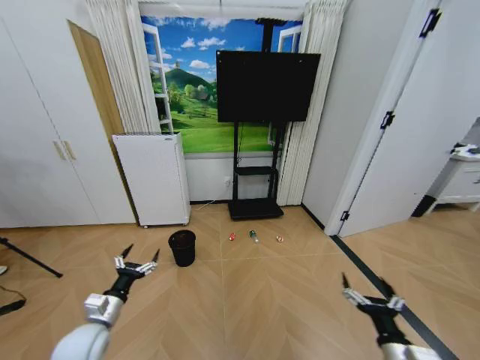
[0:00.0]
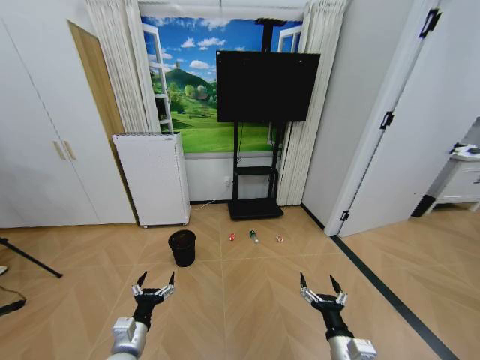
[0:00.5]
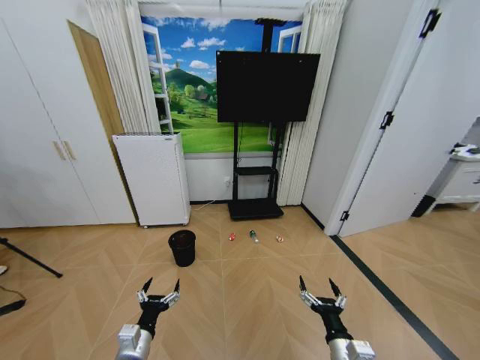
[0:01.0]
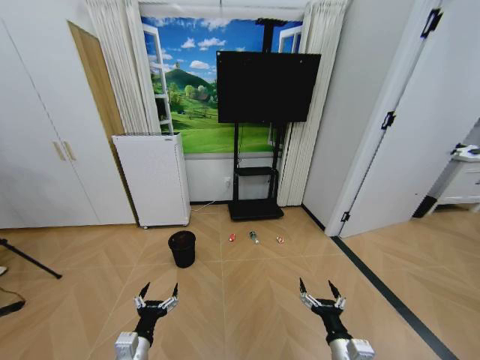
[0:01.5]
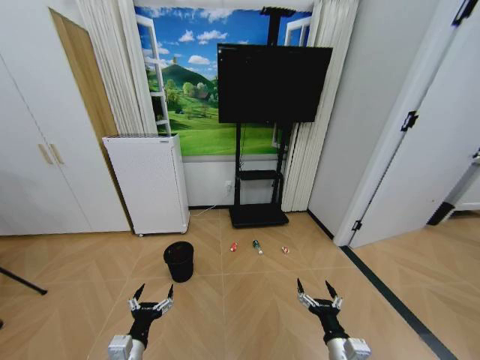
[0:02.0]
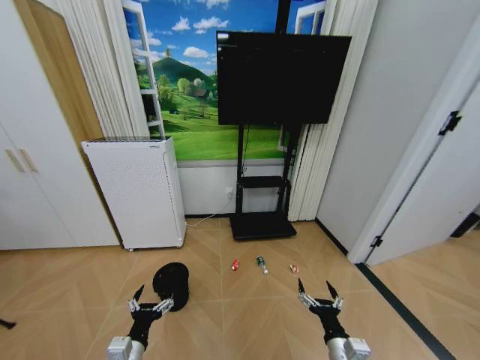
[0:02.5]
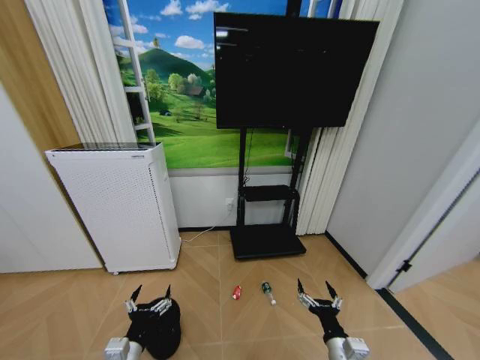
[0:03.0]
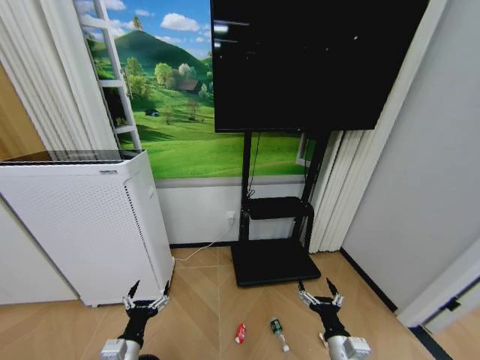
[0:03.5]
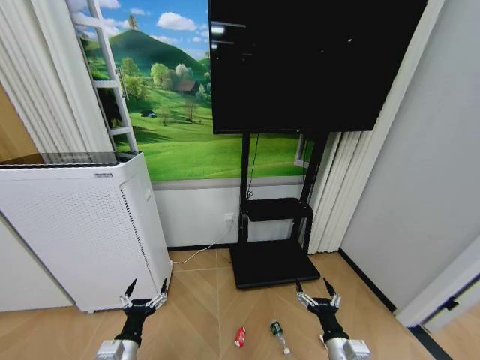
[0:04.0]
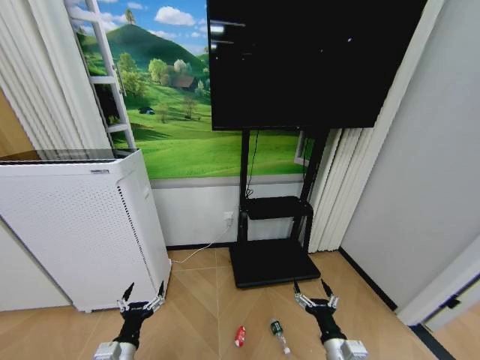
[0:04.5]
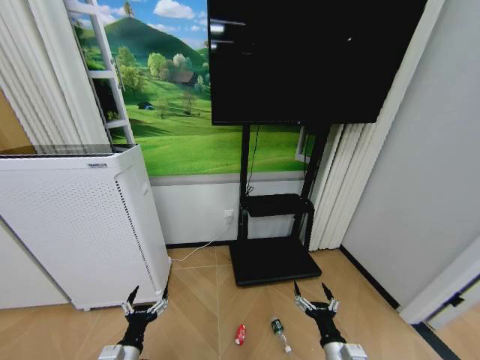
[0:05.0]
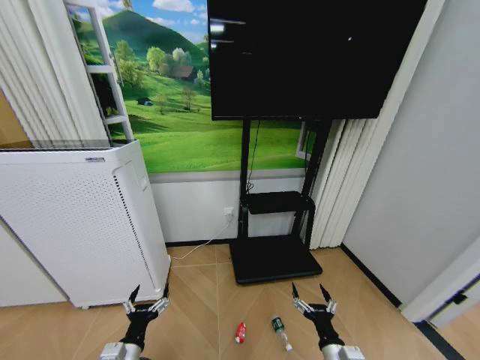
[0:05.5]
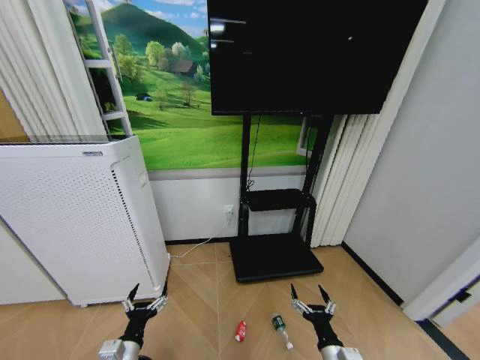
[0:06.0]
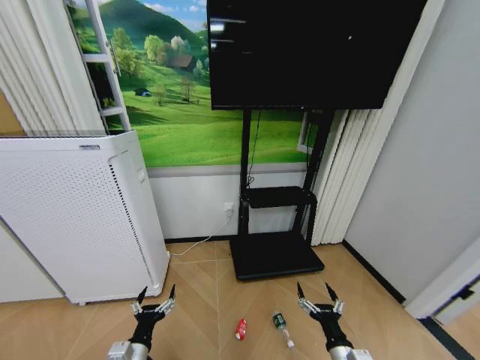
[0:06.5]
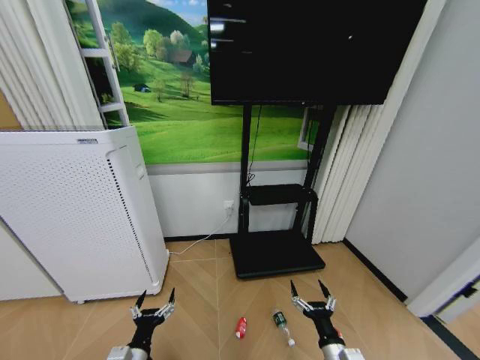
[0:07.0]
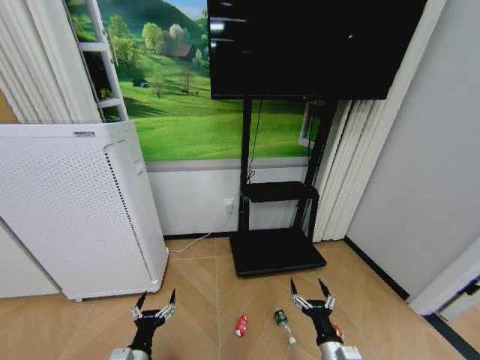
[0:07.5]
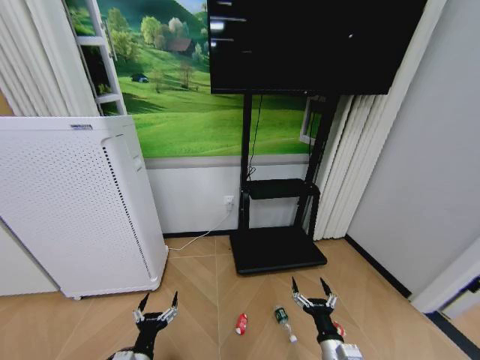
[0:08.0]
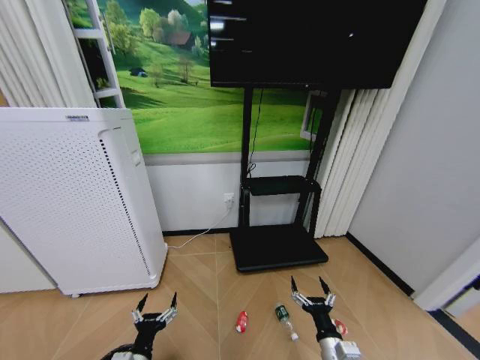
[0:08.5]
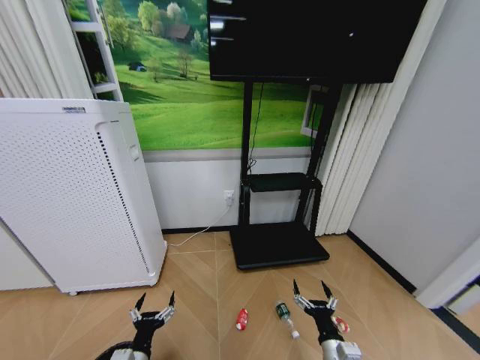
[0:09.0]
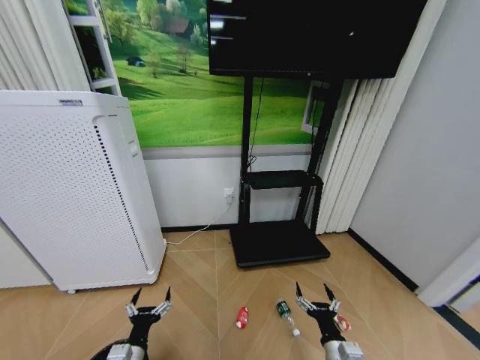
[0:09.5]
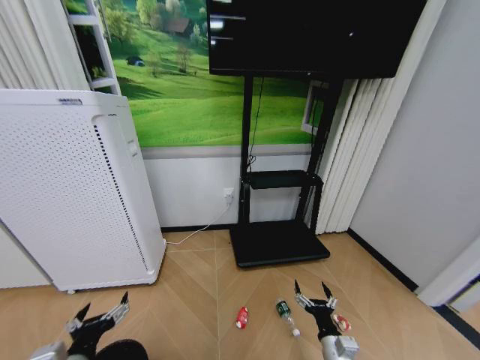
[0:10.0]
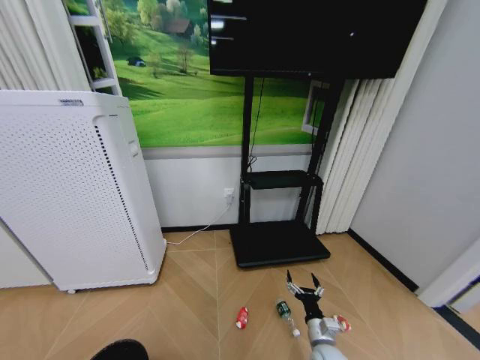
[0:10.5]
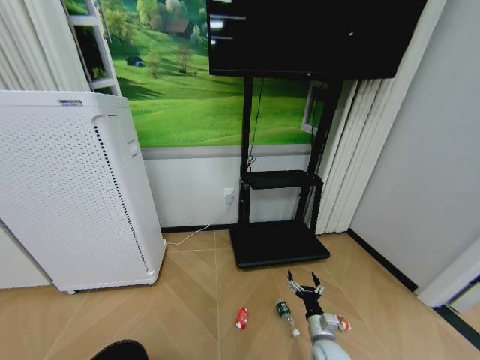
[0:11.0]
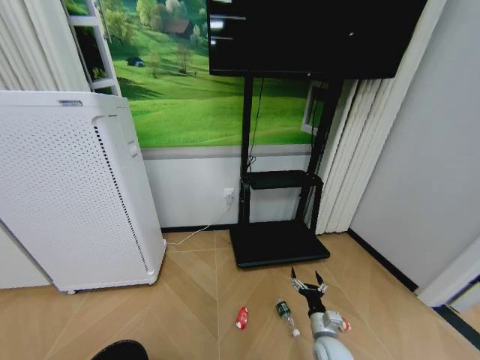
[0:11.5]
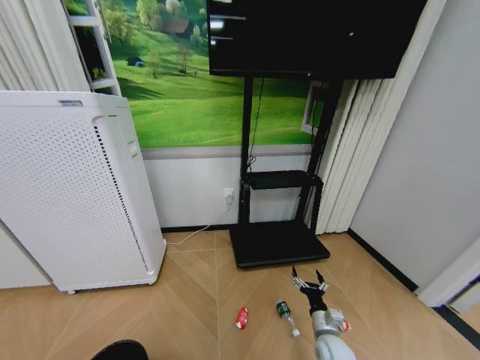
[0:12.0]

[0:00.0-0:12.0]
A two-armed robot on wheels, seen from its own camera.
Task of the whole recording: Pick up the trash bin and place the garbage on the floor into it.
0:08.0 to 0:10.0: The left gripper goes about 10 cm upward and to the left.
0:10.0 to 0:12.0: The right gripper shifts approximately 10 cm forward. Meanwhile the left gripper is displaced backward and upward by approximately 10 cm.

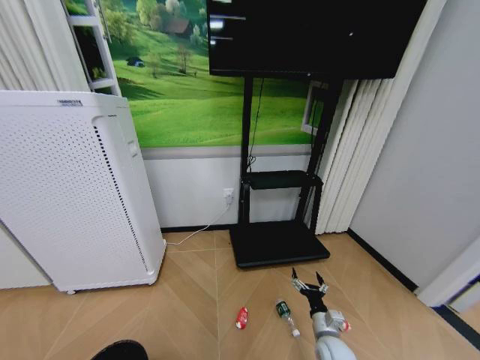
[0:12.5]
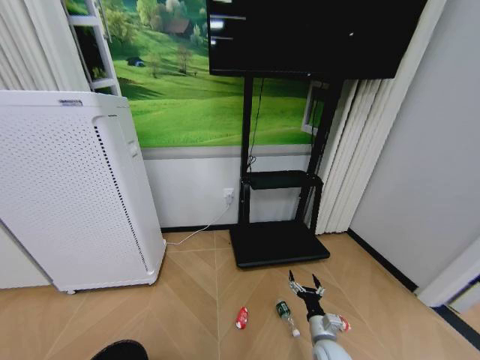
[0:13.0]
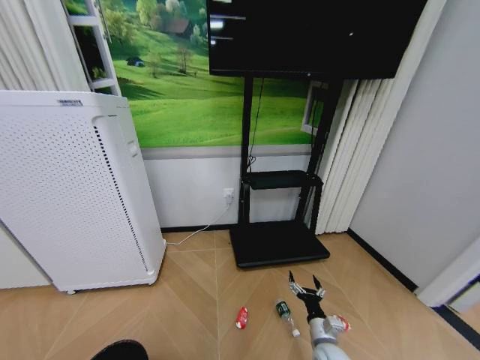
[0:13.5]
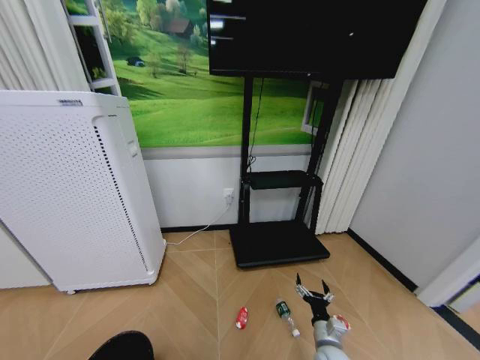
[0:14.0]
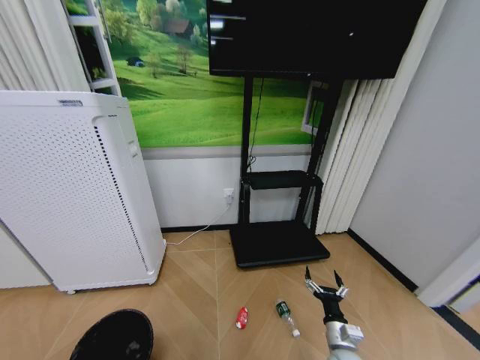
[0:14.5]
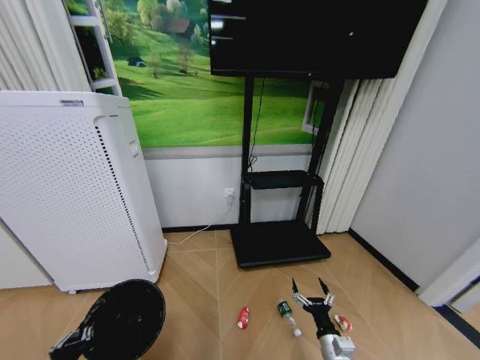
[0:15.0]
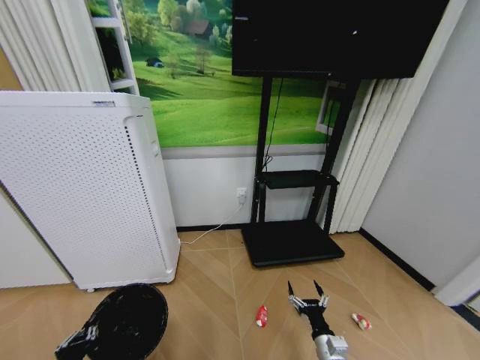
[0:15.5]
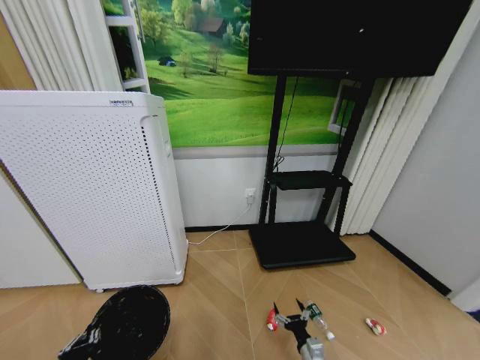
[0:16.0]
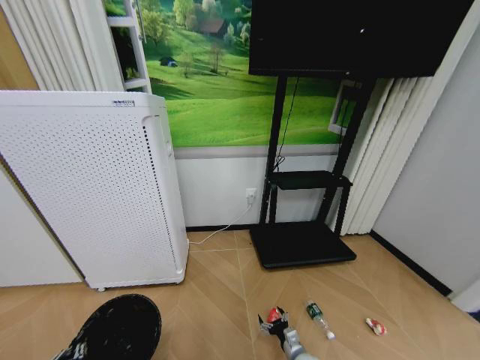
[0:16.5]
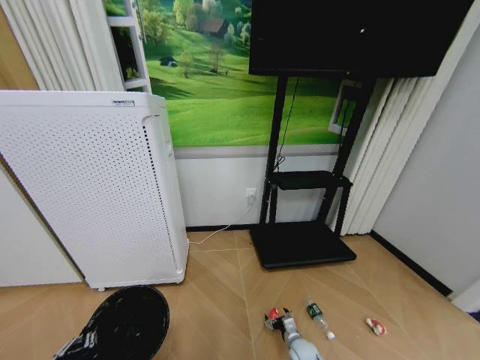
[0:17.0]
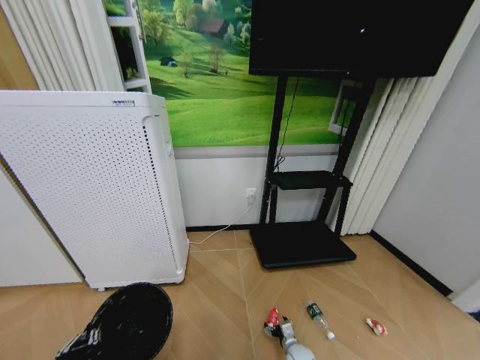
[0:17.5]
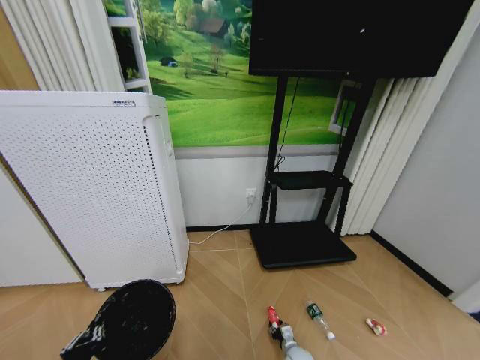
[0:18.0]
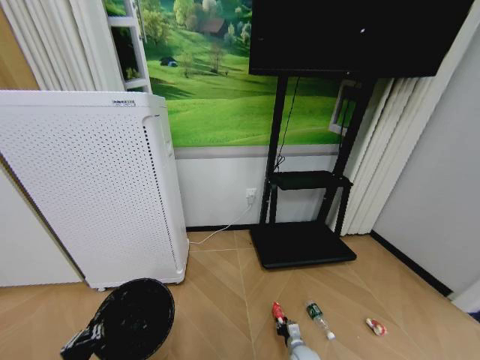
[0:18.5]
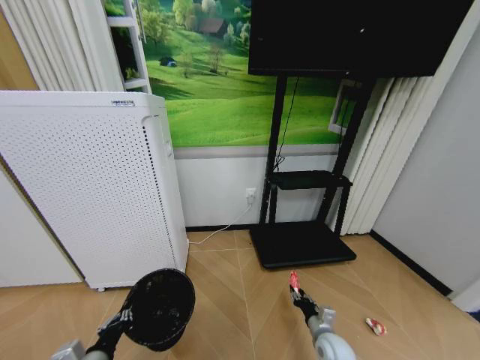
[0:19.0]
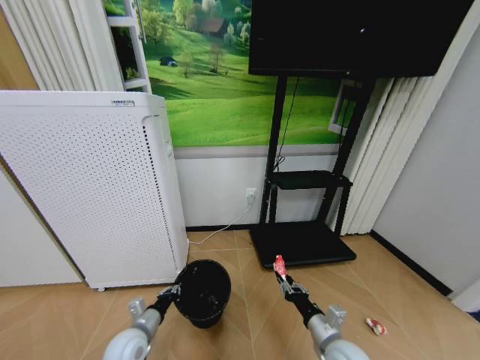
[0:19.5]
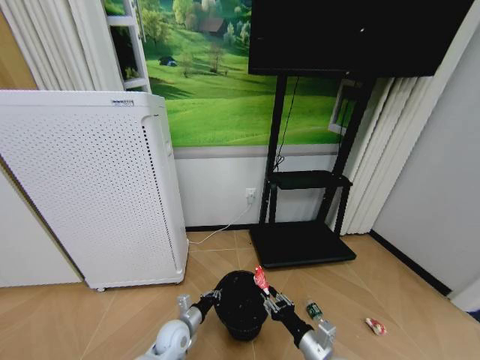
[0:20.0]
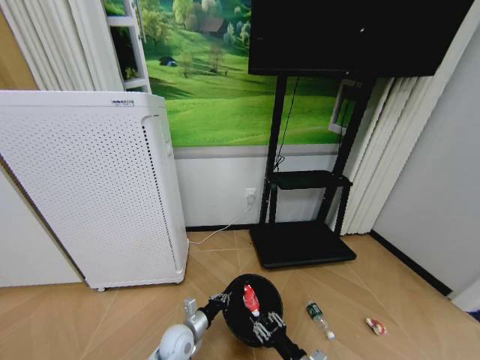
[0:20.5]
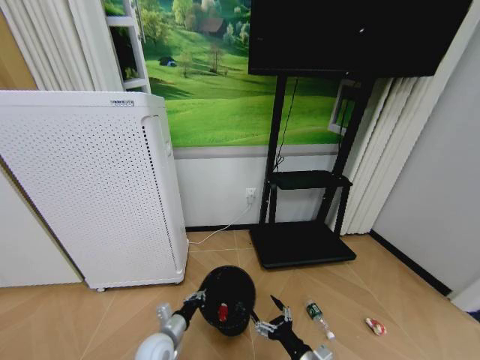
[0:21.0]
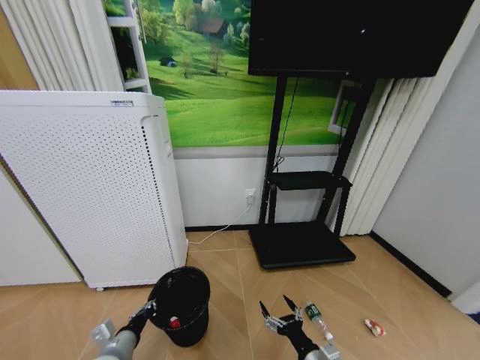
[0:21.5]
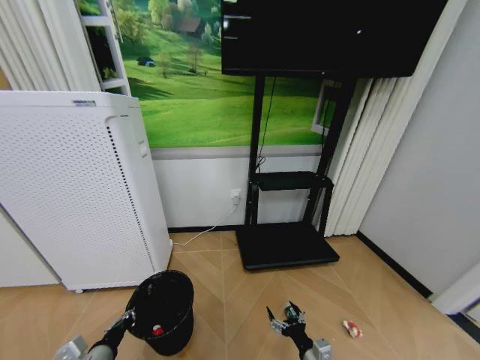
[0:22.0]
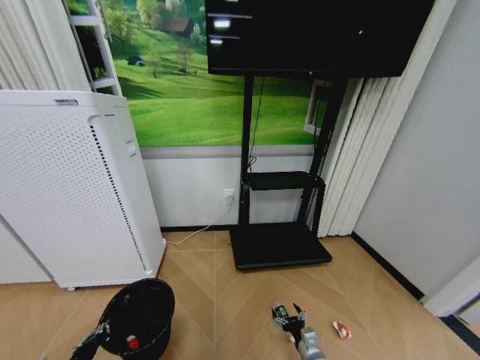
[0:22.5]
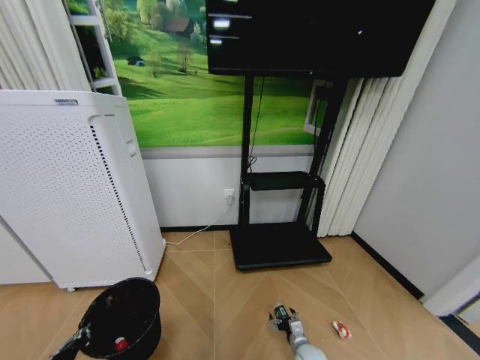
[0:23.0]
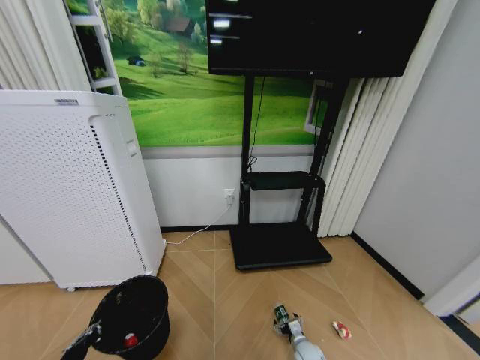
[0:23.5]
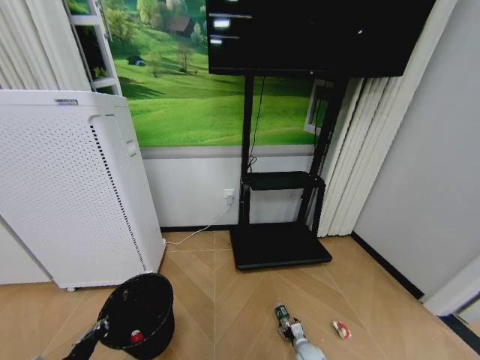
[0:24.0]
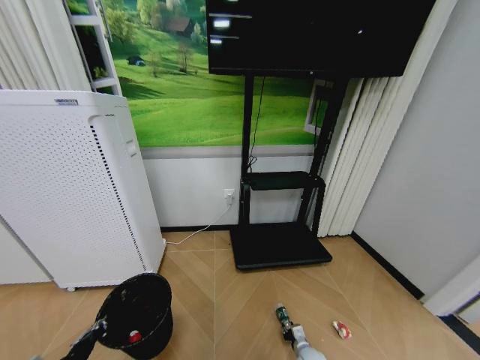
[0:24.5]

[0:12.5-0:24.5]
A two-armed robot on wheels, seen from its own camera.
Task of the whole recording: Pick up the trash bin and place the garbage on the floor into it.
0:12.5 to 0:14.5: The left gripper heads downward, covering roughly 5 cm, and closes.
0:14.5 to 0:16.5: The right gripper goes about 15 cm downward and to the left.
0:16.5 to 0:18.5: The right gripper moves about 5 cm, and closes up.
0:18.5 to 0:20.5: The right gripper goes roughly 25 cm upward and backward. The left gripper moves forward, to the right and downward, some 30 cm.
0:20.5 to 0:22.5: The right gripper moves downward and forward, approximately 10 cm, and opens. Meanwhile the left gripper is displaced to the left, backward and upward by some 25 cm.
0:22.5 to 0:24.5: The right gripper heads downward and forward, covering roughly 15 cm, and closes its fingers.

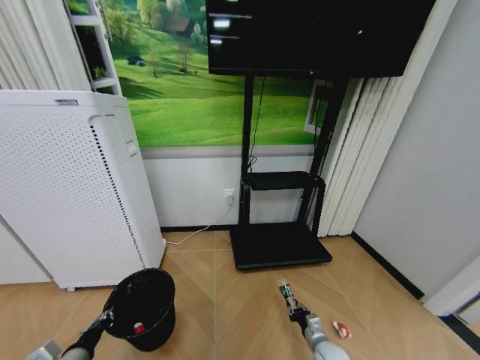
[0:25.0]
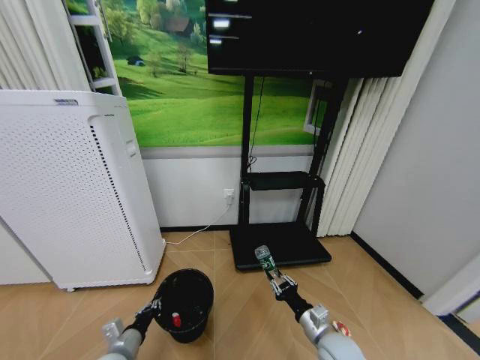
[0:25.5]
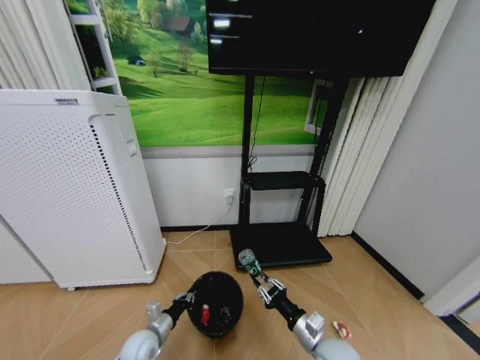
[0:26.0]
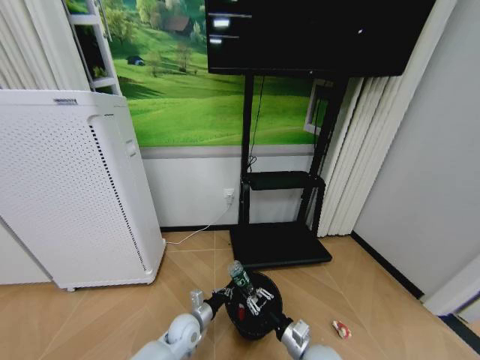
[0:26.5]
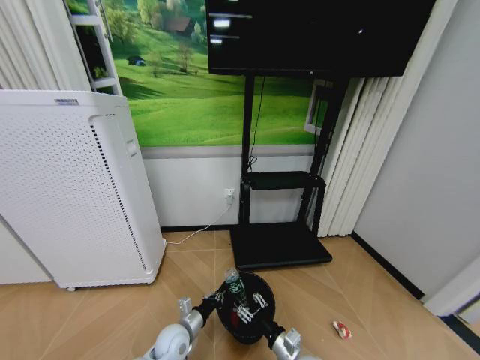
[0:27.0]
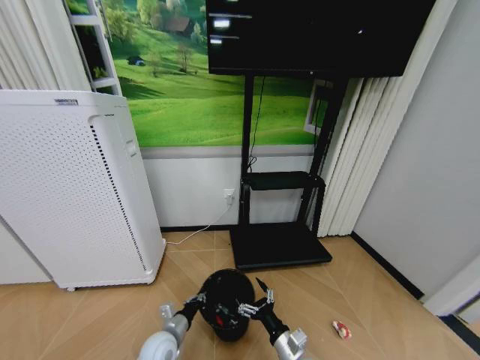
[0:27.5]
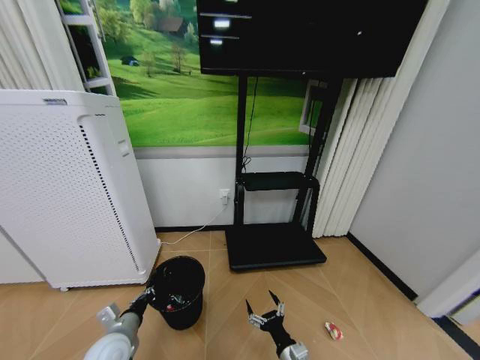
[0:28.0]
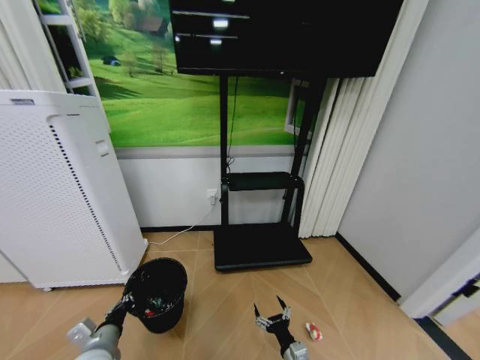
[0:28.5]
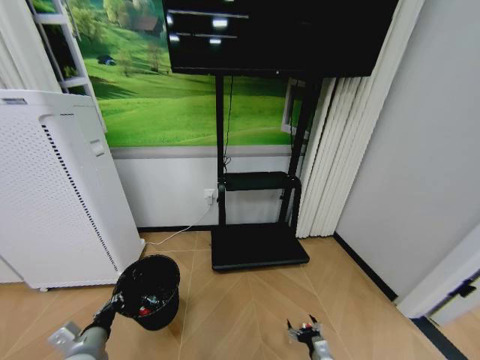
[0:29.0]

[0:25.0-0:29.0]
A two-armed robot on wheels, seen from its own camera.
Task of the whole recording: Pick up the trash bin and place the garbage on the floor into it.
0:25.0 to 0:27.0: The right gripper is displaced to the left, upward and backward by roughly 15 cm, and opens its fingers. The left gripper shifts roughly 25 cm to the right, forward and downward.
0:27.0 to 0:29.0: The right gripper shifts about 15 cm downward and to the right, and opens its fingers. The left gripper moves to the left, upward and backward, approximately 20 cm.
